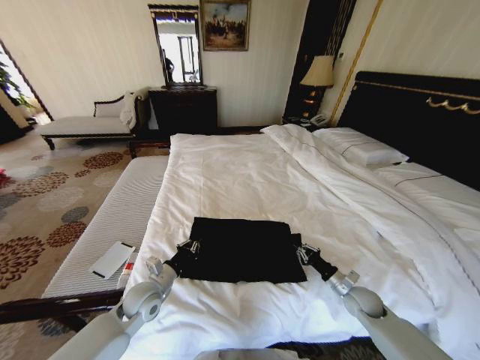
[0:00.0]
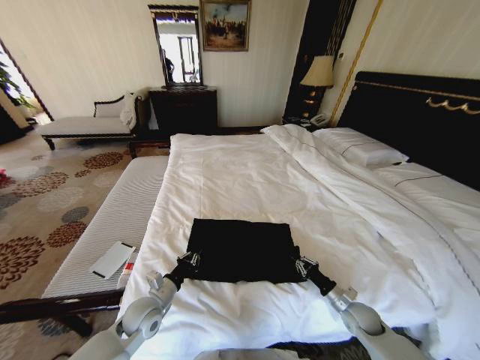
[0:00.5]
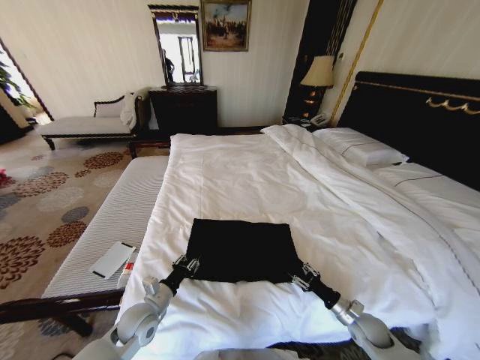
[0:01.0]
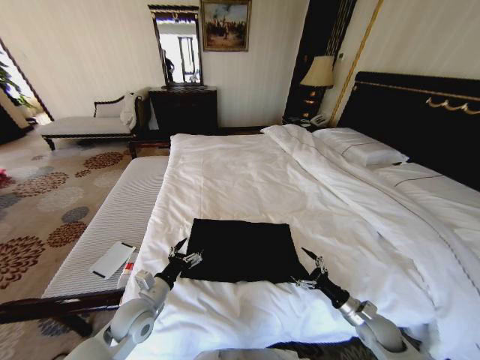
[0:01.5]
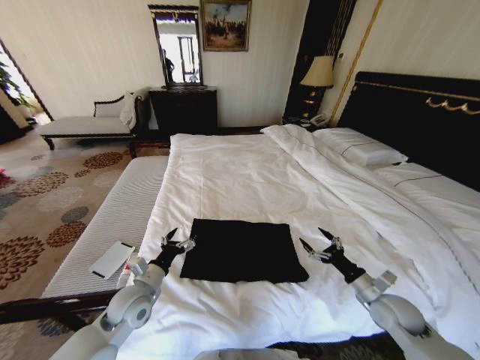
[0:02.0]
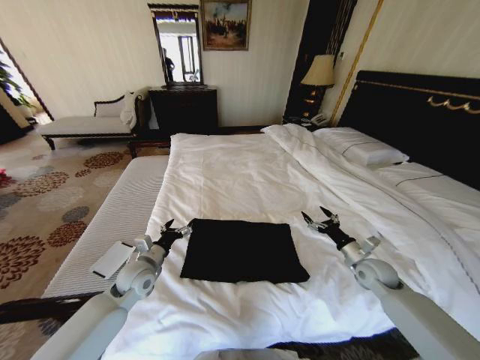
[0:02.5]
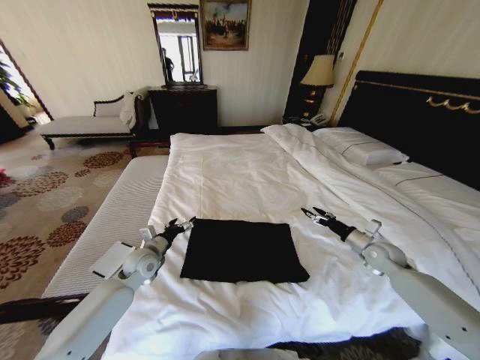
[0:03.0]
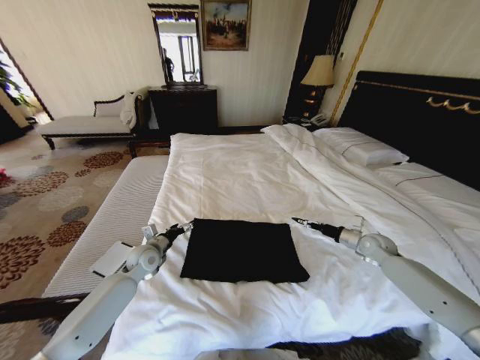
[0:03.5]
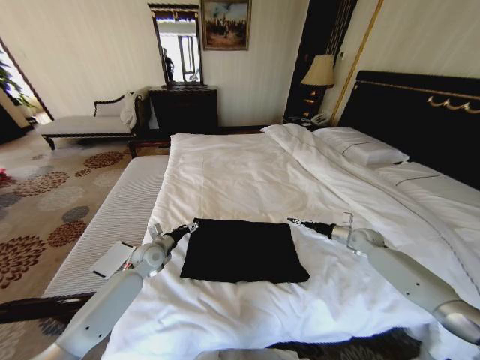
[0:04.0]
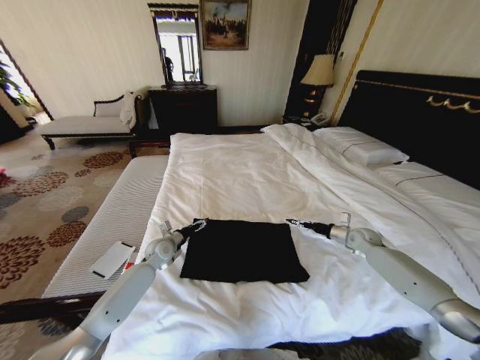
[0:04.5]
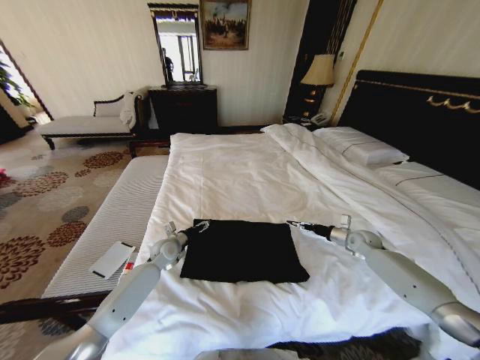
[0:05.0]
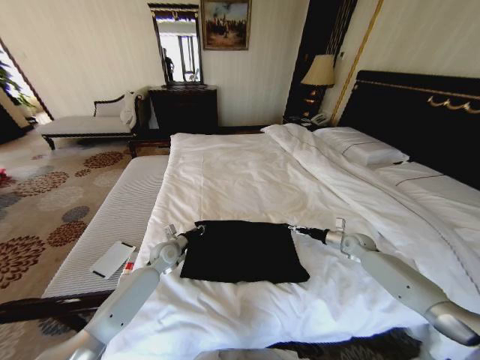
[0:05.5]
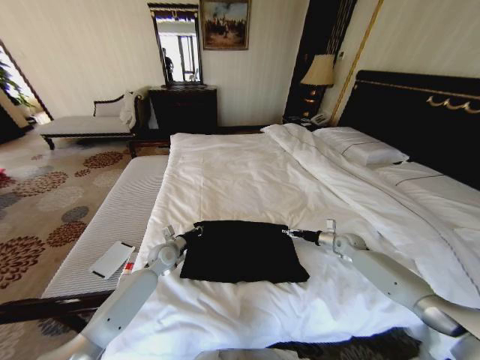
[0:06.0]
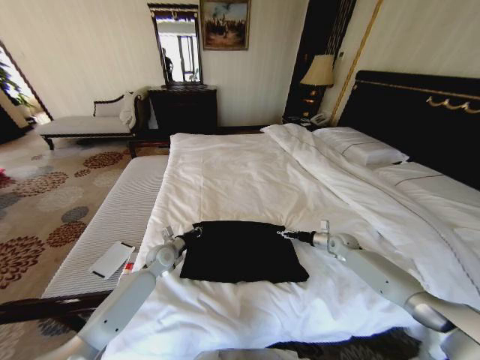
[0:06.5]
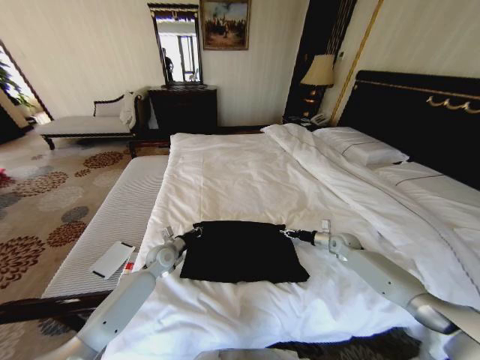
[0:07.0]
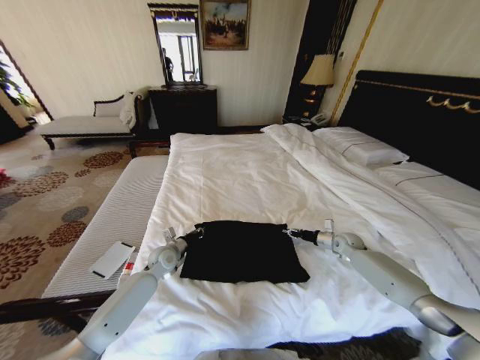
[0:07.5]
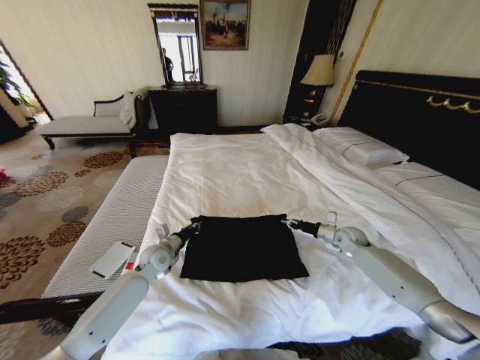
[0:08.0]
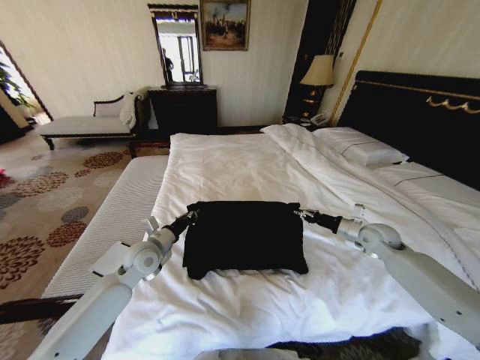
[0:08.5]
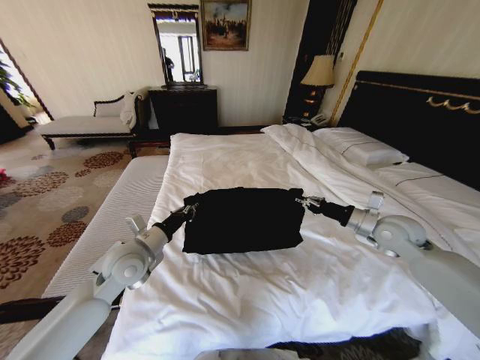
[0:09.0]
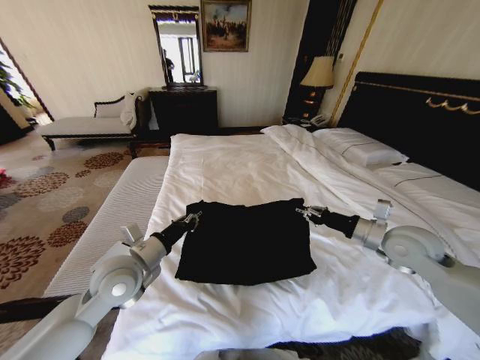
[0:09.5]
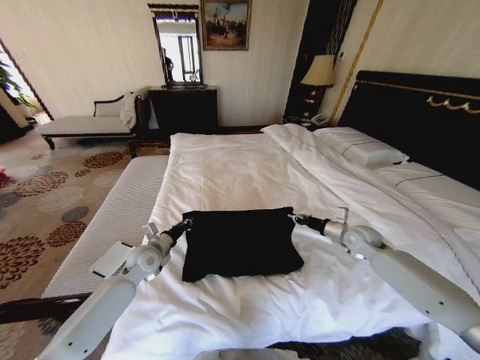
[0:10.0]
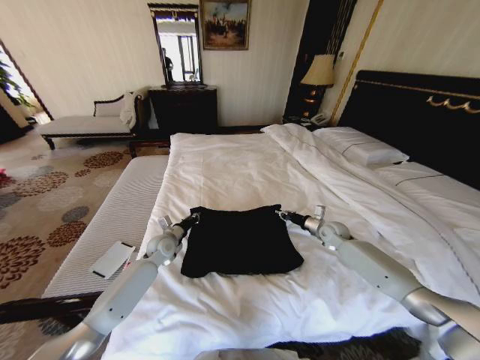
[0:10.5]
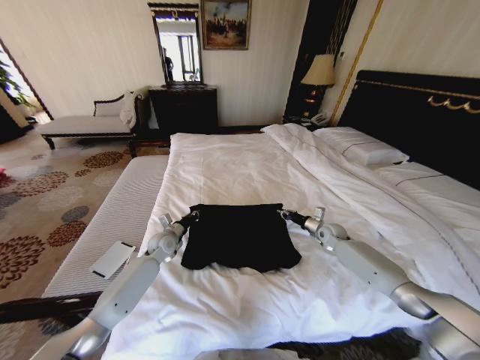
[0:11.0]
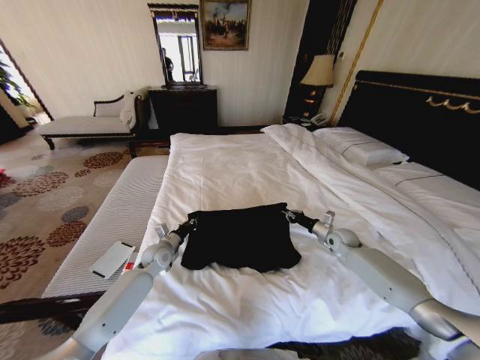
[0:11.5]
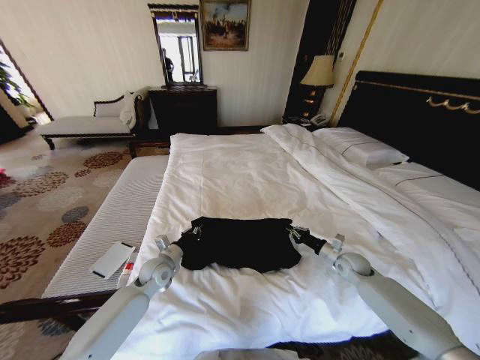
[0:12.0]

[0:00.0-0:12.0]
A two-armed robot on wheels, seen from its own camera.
Task of the whole recording: Fold the clothes on the bed.
0:00.0 to 0:02.0: The right gripper is displaced upward and backward by approximately 10 cm, and opens its fingers. Meanwhile the left gripper opens up.
0:02.0 to 0:04.0: The left gripper shifts approximately 15 cm forward; the right gripper goes approximately 25 cm forward.
0:04.0 to 0:06.0: The left gripper closes up; the right gripper changes place by some 5 cm.
0:06.0 to 0:08.0: The right gripper closes up.
0:08.0 to 0:10.0: The left gripper goes upward and returns, about 15 cm each way, while the right gripper goes upward and returns, approximately 20 cm each way.
0:10.0 to 0:12.0: The left gripper is displaced downward by approximately 5 cm, and moves some 10 cm forward and comes back, while the right gripper heads downward, covering roughly 10 cm, and moves about 10 cm forward and comes back.

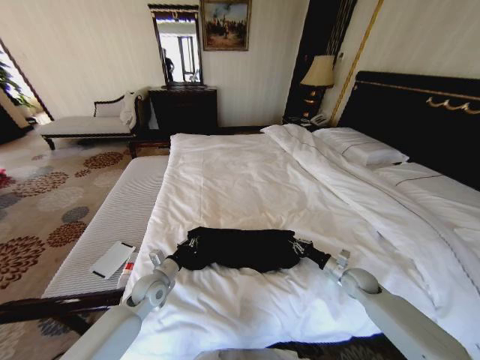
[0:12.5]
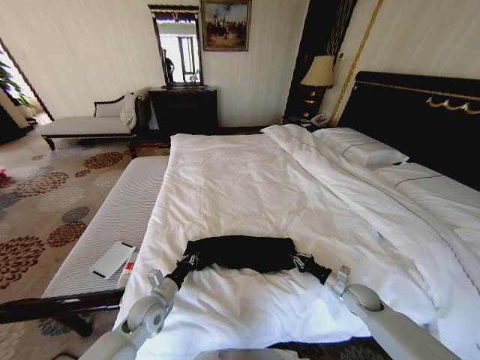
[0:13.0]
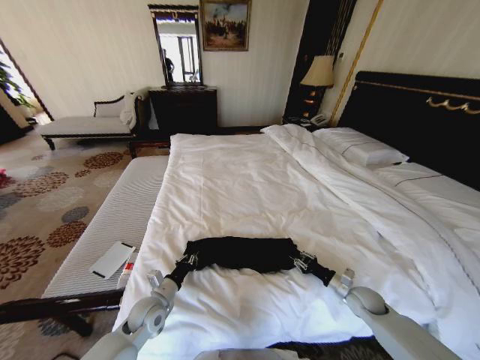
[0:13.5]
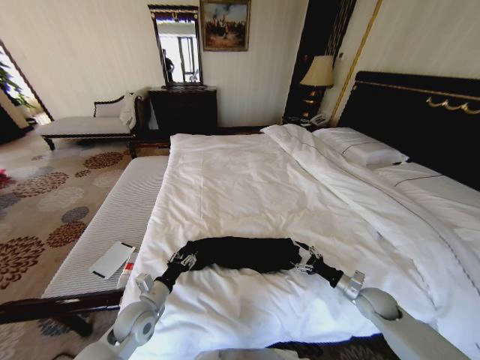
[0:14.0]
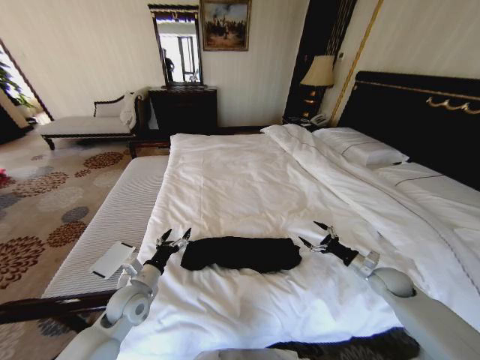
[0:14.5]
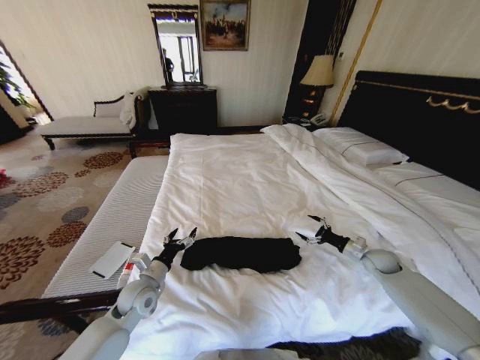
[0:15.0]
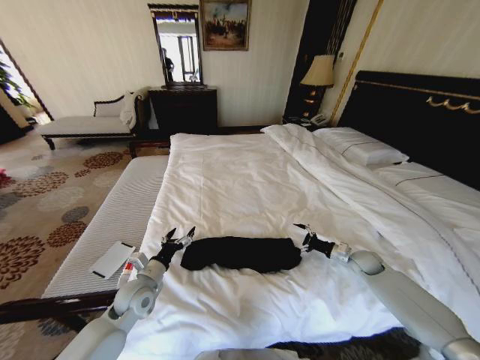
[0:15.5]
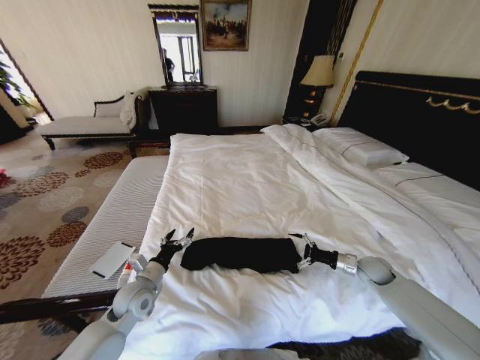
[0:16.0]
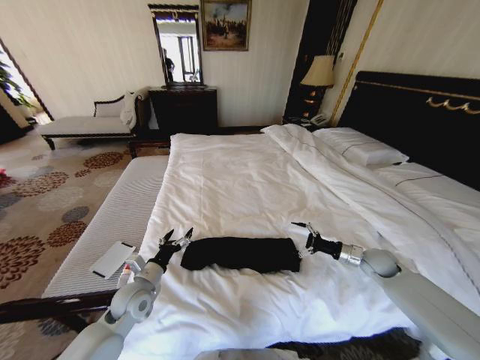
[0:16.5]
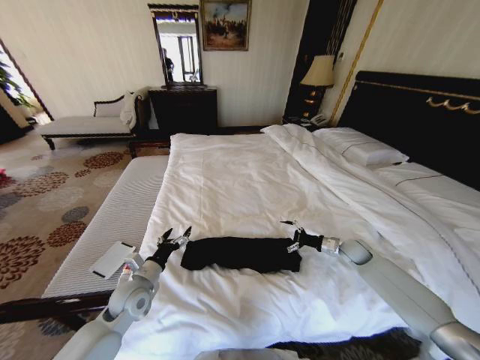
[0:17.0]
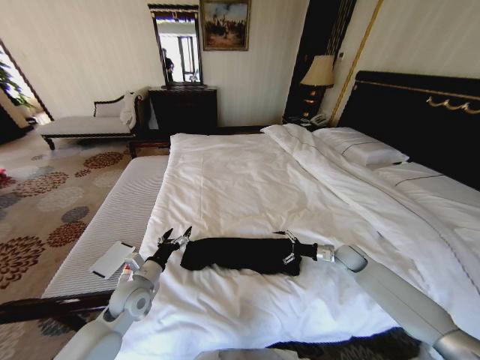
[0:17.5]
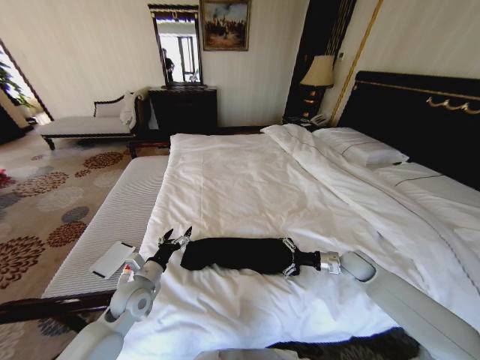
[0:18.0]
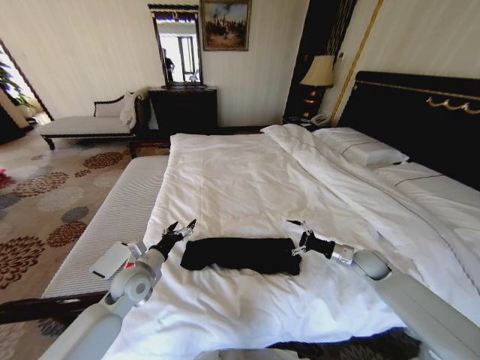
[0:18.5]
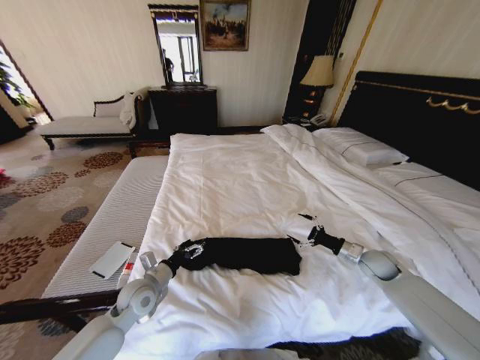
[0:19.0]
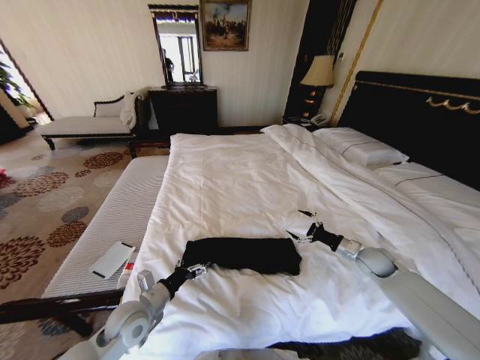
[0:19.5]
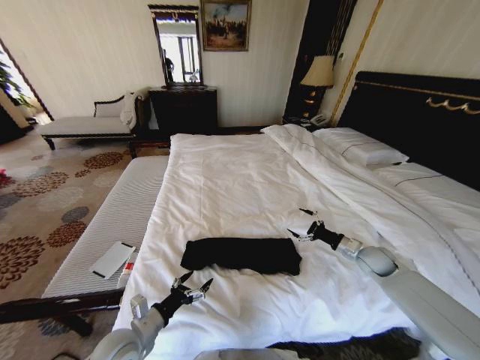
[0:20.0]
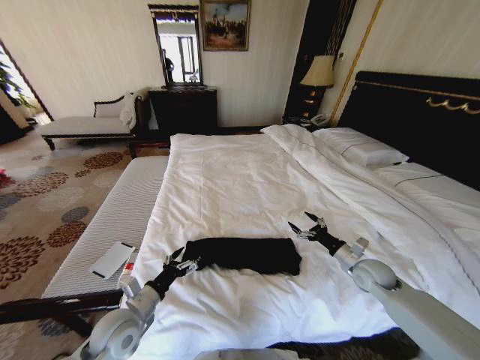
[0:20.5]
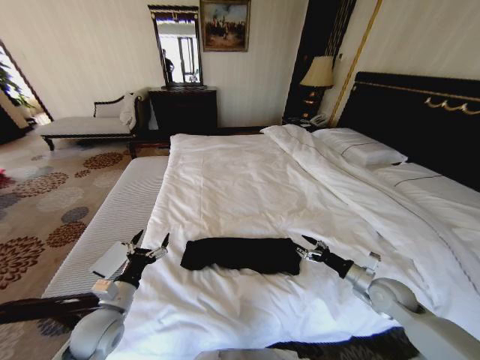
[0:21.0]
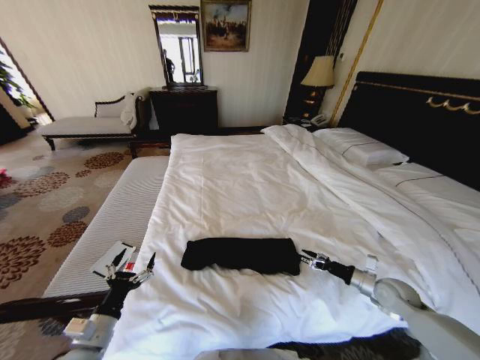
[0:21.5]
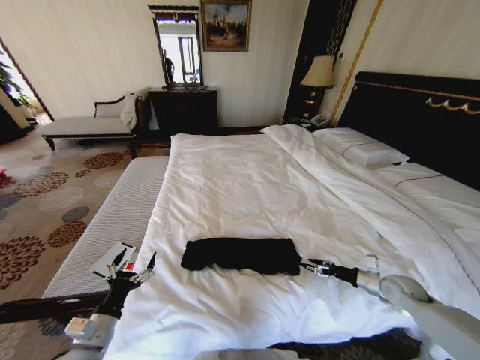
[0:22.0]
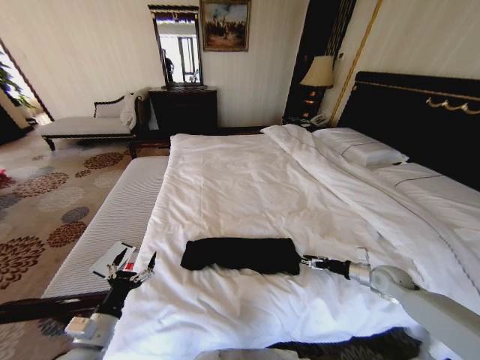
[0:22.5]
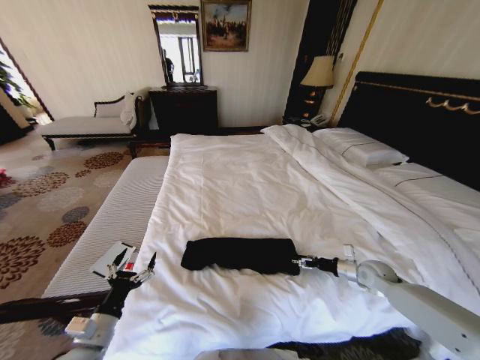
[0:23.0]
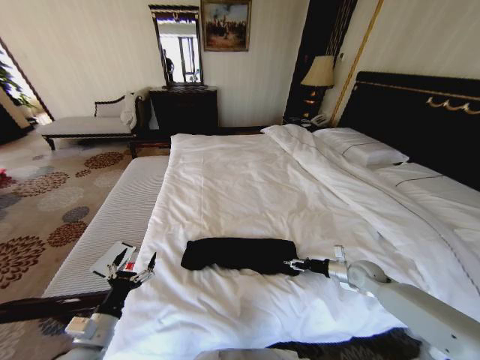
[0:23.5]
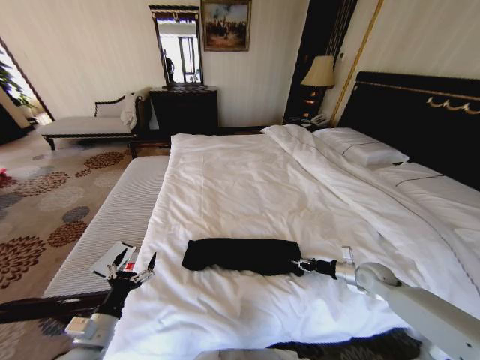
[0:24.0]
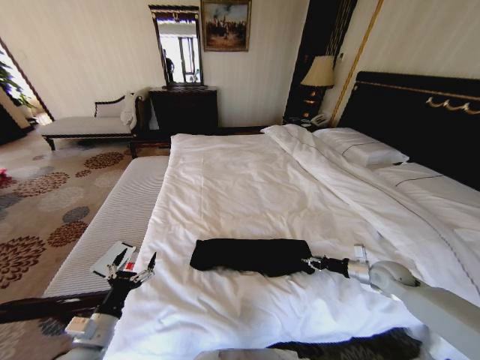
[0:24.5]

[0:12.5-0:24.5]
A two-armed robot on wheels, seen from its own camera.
Task of the whole recording: Fold the clothes on the bed.
0:12.5 to 0:14.5: The left gripper moves some 5 cm, and opens up. Meanwhile the right gripper shifts approximately 5 cm to the right, and opens its fingers.
0:14.5 to 0:16.5: The right gripper changes place by roughly 5 cm.
0:18.5 to 0:20.5: The left gripper is displaced backward by roughly 10 cm.
0:20.5 to 0:22.5: The left gripper heads backward and to the left, covering roughly 10 cm, while the right gripper moves to the right, approximately 10 cm.
0:22.5 to 0:24.5: The right gripper closes.

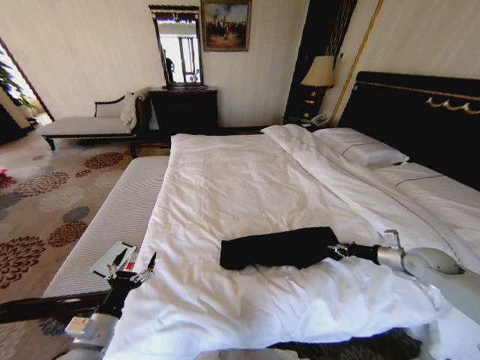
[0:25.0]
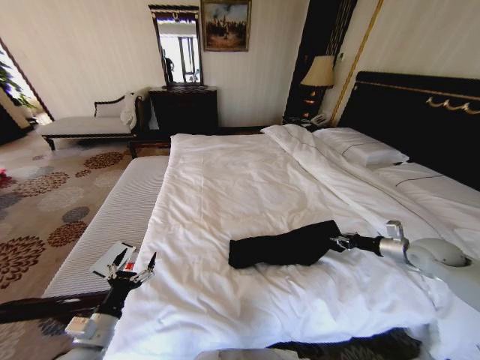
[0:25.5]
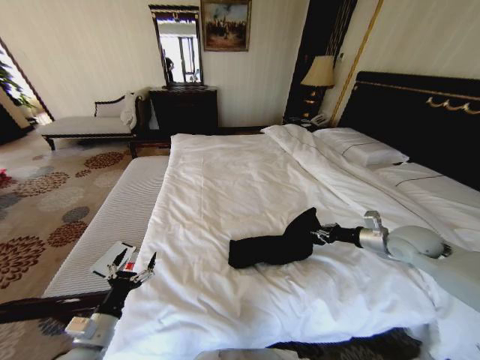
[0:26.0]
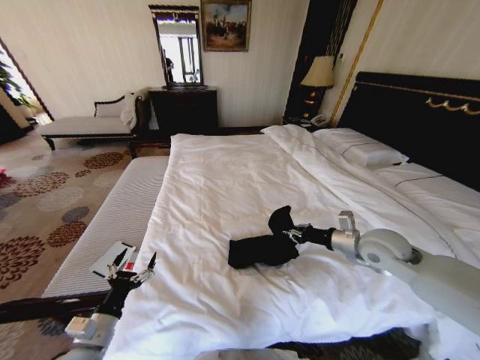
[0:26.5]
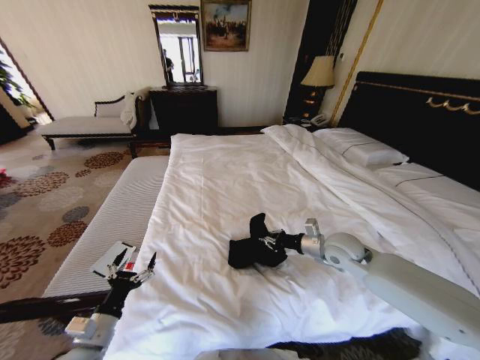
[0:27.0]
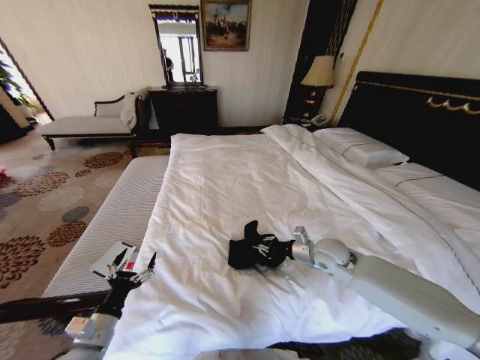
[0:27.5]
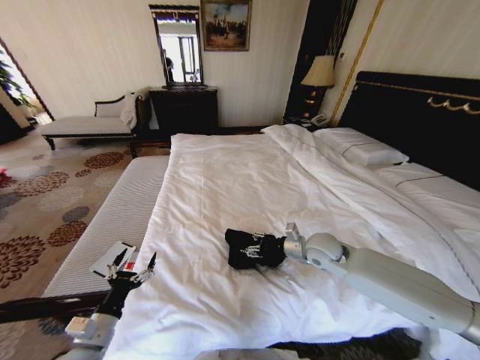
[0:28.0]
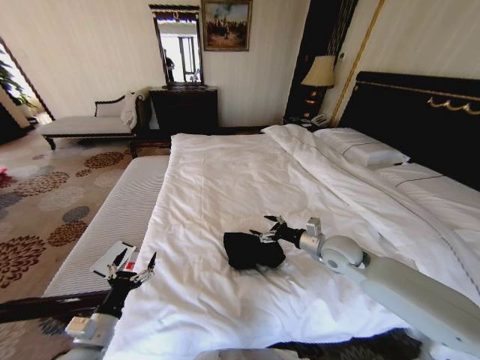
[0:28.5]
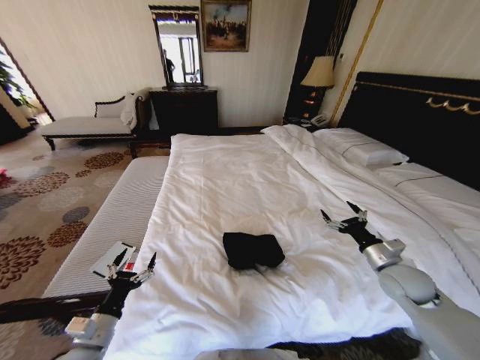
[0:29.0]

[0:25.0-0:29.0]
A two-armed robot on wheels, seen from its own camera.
Task of the whole recording: Fold the clothes on the bed.
0:25.0 to 0:27.0: The right gripper moves to the left, about 25 cm.
0:27.0 to 0:29.0: The right gripper shifts some 15 cm to the right and backward, and opens.
